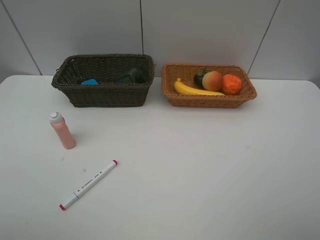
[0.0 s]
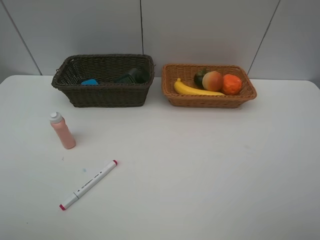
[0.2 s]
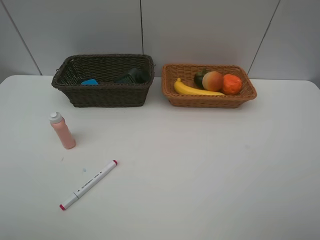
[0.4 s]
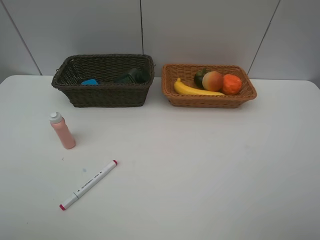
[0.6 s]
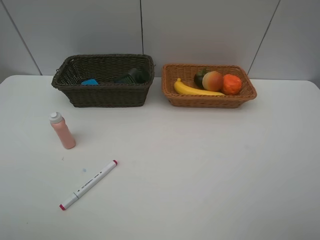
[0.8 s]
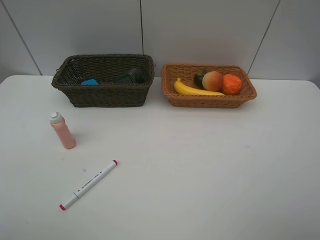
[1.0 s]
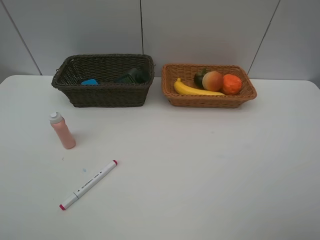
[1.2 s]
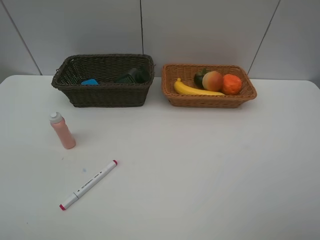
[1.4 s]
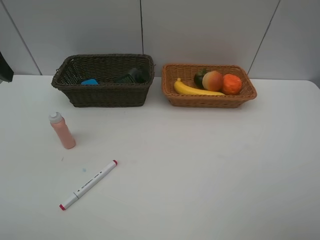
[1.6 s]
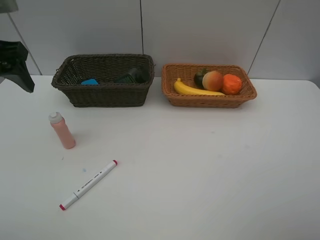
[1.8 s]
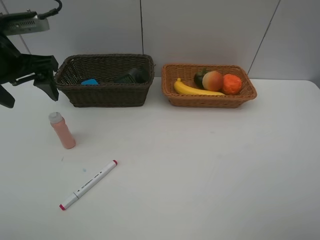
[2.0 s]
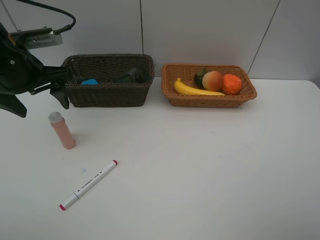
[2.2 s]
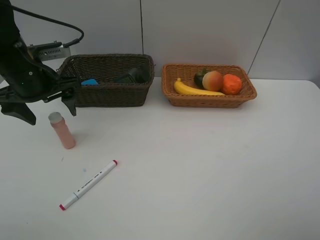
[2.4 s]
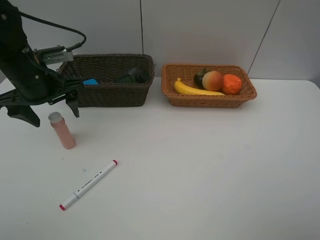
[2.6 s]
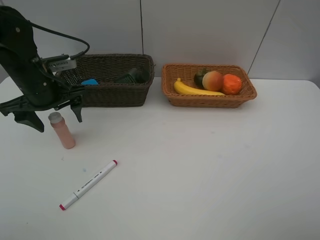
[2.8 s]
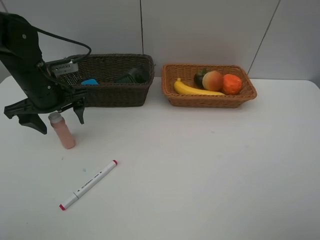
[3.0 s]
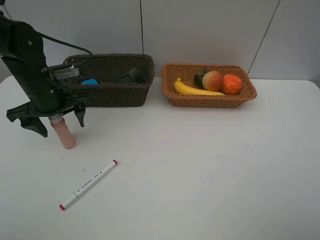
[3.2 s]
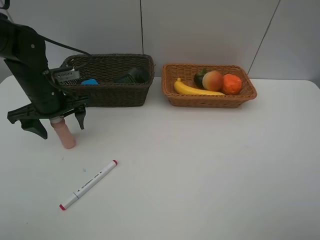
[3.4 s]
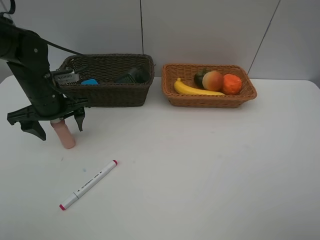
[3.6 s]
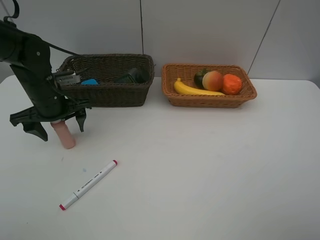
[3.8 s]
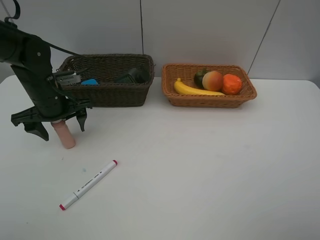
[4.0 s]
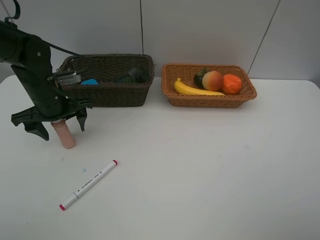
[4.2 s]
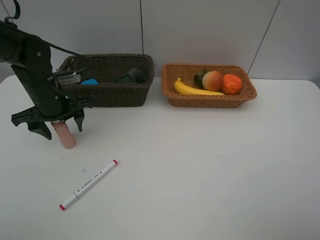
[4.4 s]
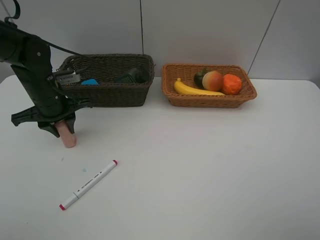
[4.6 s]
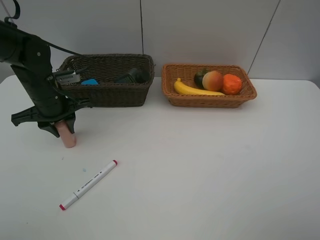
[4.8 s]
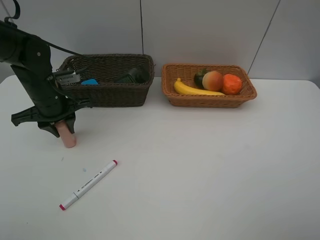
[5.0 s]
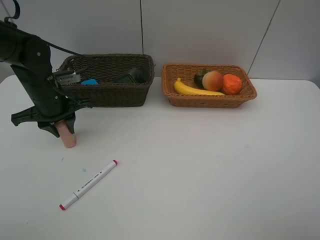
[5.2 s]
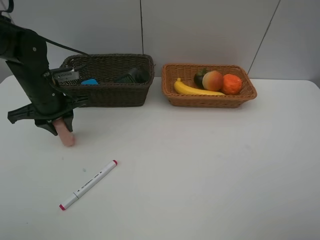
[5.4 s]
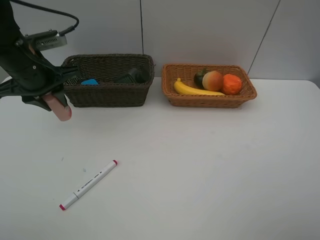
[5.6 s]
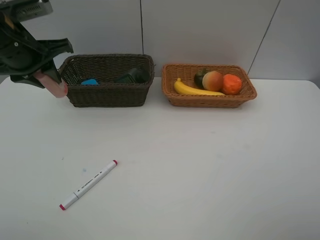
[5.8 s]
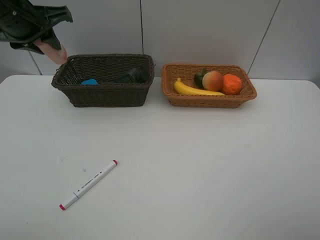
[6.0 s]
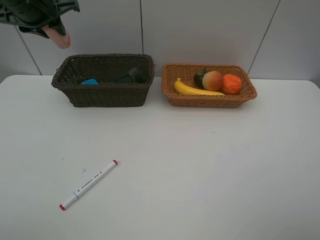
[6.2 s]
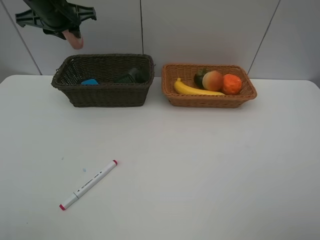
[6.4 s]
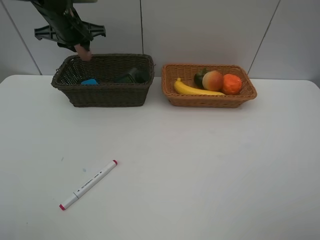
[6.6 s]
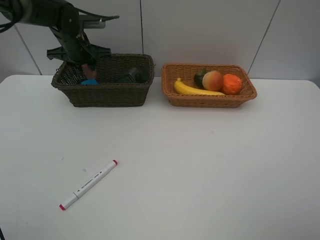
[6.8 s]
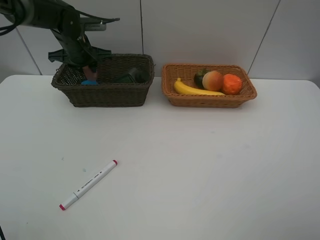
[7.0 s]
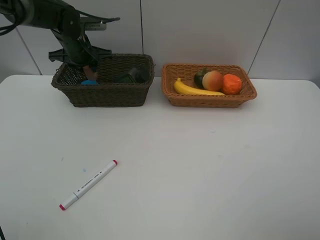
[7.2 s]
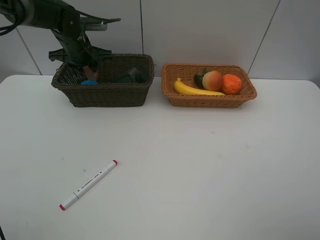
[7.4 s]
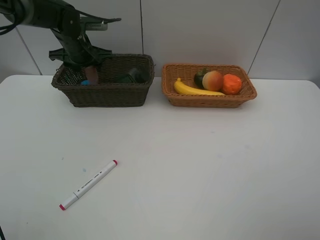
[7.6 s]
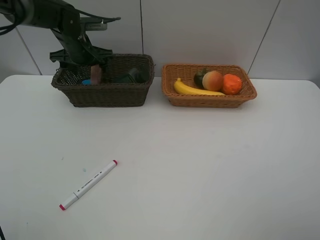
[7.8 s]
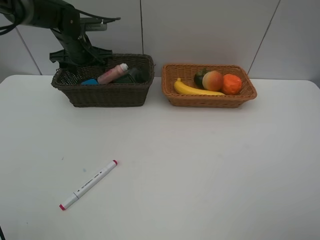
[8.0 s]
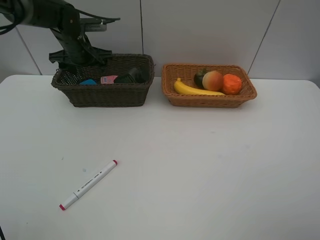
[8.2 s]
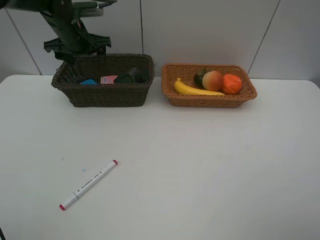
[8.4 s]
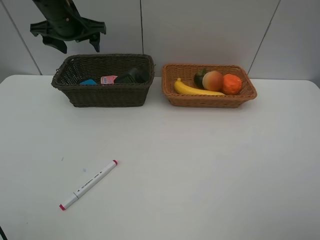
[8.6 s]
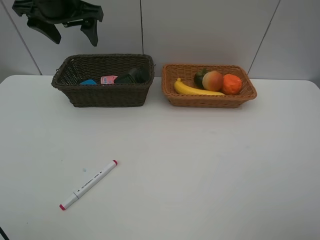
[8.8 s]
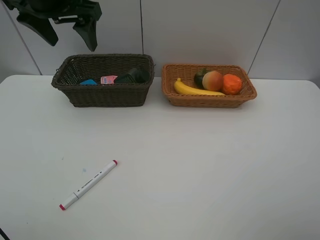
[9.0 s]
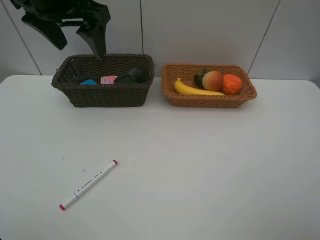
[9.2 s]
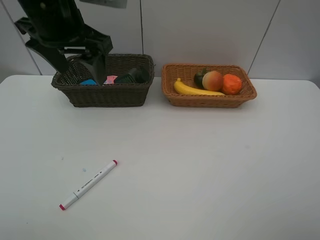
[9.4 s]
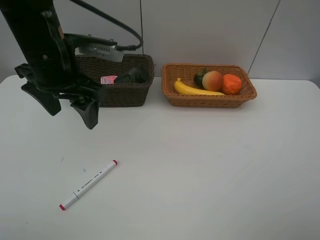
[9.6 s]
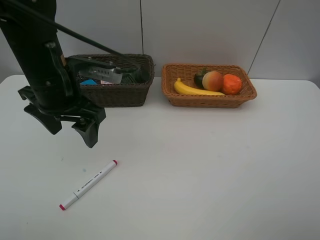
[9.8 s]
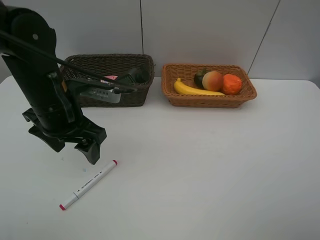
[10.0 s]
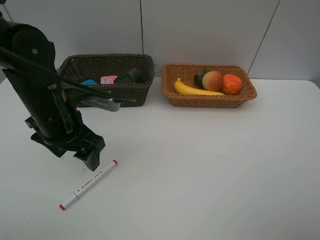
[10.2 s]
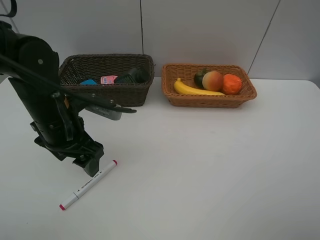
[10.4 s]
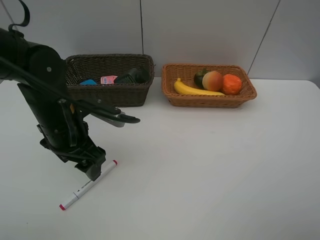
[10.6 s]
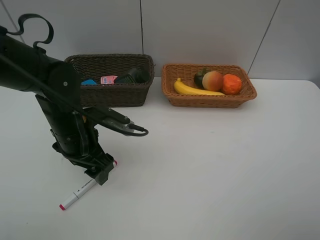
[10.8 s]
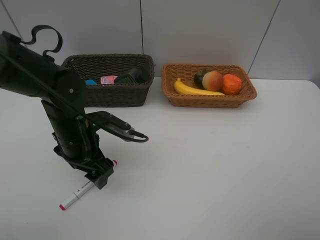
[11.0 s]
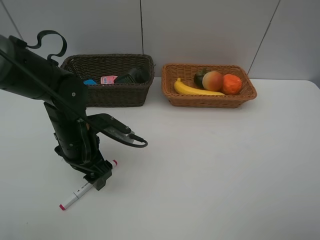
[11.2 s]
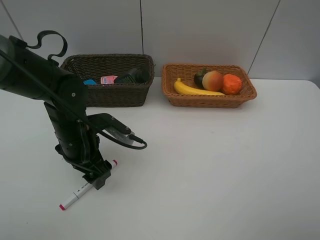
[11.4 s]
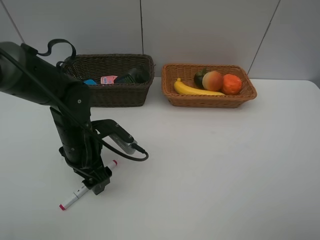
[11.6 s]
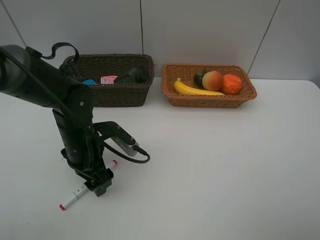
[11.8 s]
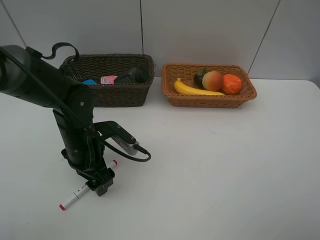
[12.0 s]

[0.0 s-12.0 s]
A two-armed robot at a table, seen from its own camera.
Task of the whole recording: Place multiple objects separately in different baskets.
Step, 0.0 to 5.4 s: Pick up the laundry detergent with left gripper.
Step, 5.6 to 8.2 s: Place the laundry detergent in the dark basket with left gripper.
1.6 to 3.0 s: The left gripper goes approximately 20 cm downward, forward and to the right.
3.0 to 4.4 s: The left gripper closes its fingers.
4.4 to 6.0 s: The left gripper travels upward by some 15 cm, and closes its fingers.
6.0 to 7.6 s: The left gripper heads forward and downward, covering approximately 20 cm, and opens its fingers.
7.6 to 9.0 s: The left gripper is displaced upward and backward by some 20 cm.
9.0 to 10.4 s: The left gripper heads downward and backward, covering some 20 cm.
10.4 to 12.0 s: The left gripper travels downward by some 5 cm.

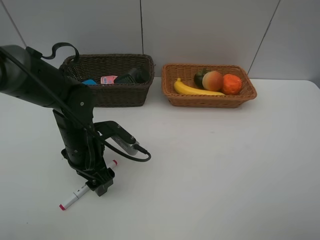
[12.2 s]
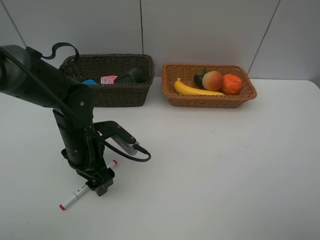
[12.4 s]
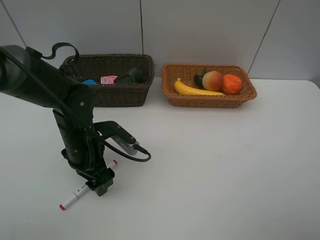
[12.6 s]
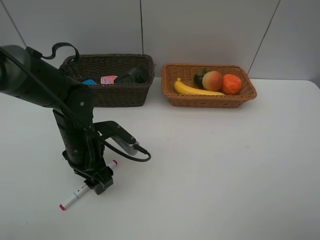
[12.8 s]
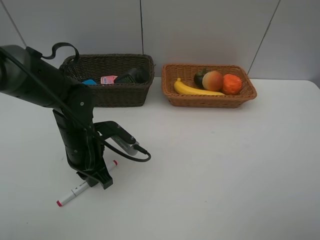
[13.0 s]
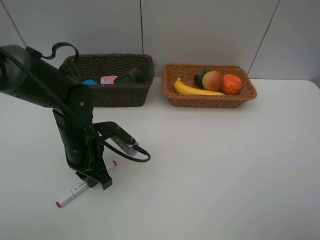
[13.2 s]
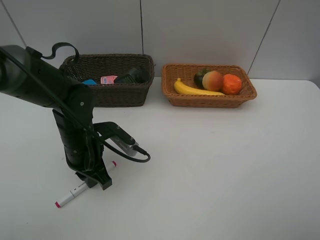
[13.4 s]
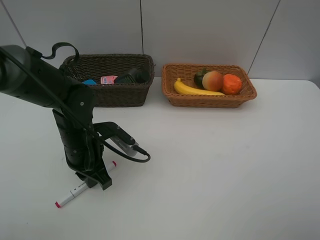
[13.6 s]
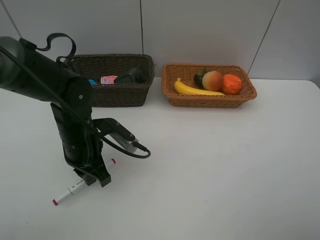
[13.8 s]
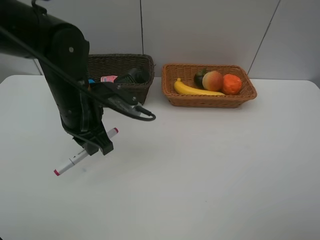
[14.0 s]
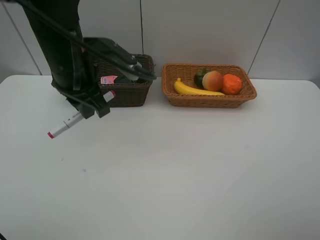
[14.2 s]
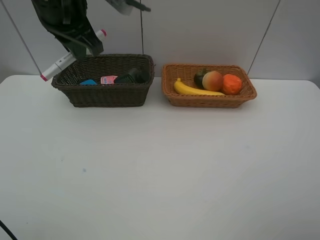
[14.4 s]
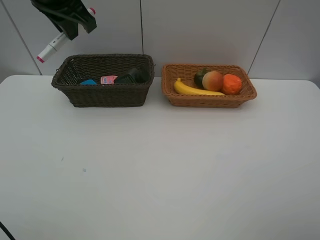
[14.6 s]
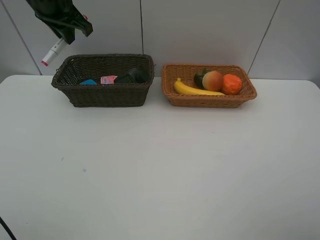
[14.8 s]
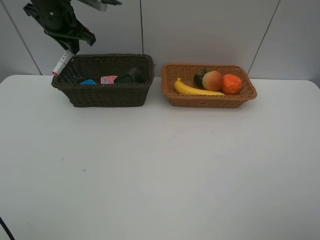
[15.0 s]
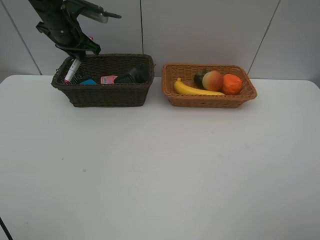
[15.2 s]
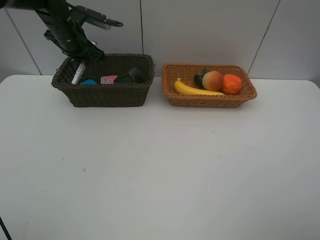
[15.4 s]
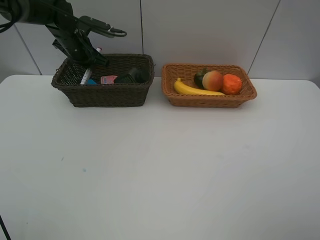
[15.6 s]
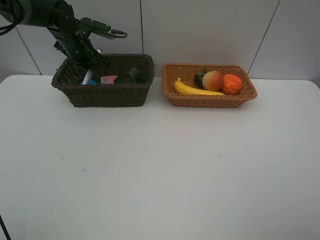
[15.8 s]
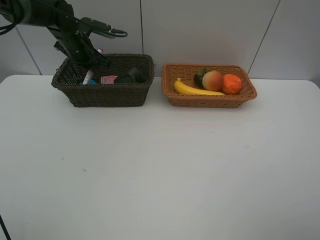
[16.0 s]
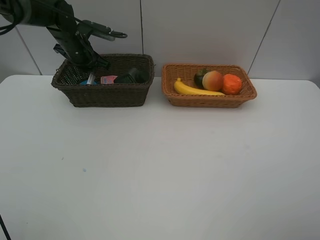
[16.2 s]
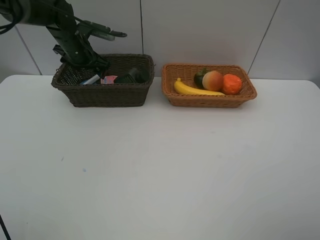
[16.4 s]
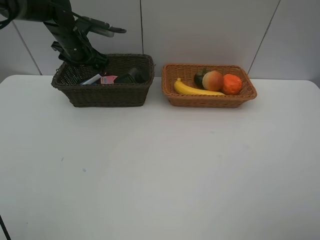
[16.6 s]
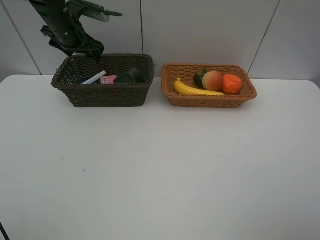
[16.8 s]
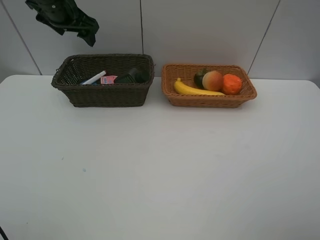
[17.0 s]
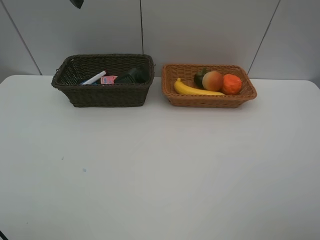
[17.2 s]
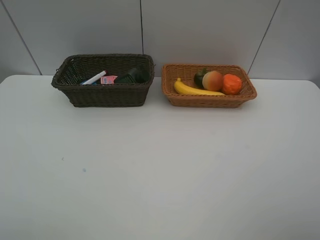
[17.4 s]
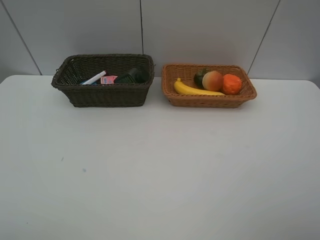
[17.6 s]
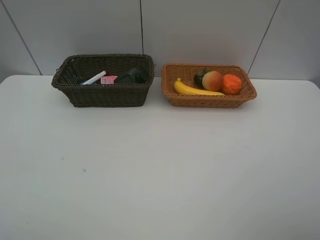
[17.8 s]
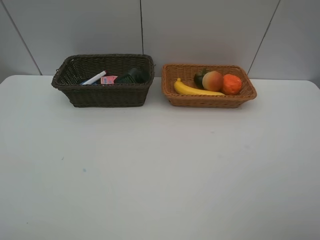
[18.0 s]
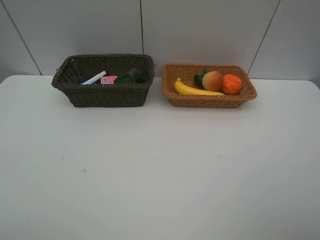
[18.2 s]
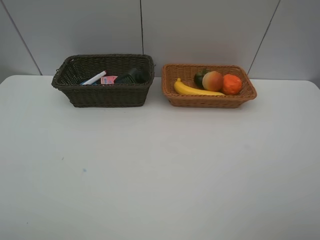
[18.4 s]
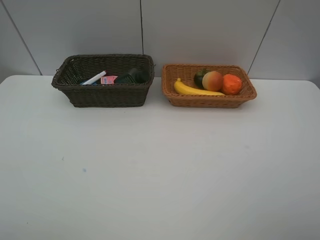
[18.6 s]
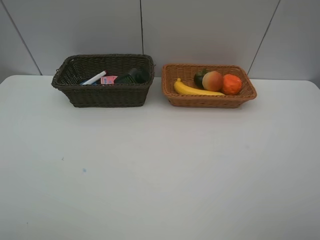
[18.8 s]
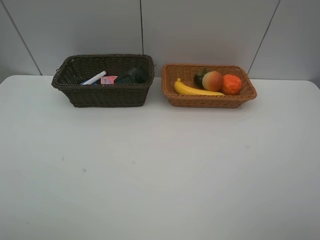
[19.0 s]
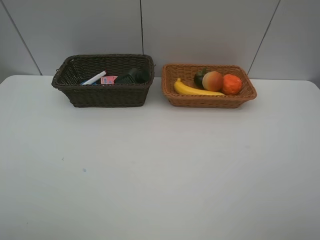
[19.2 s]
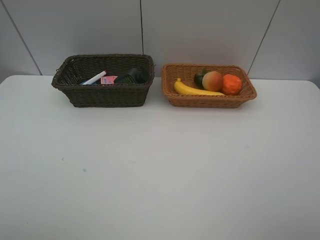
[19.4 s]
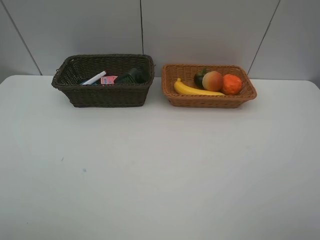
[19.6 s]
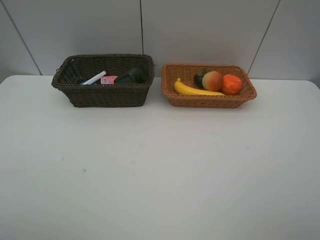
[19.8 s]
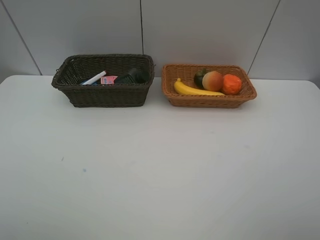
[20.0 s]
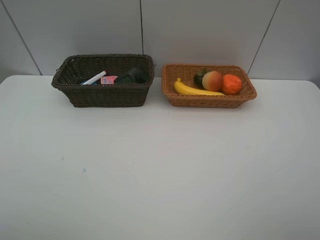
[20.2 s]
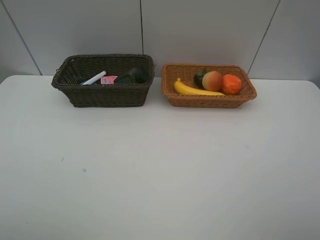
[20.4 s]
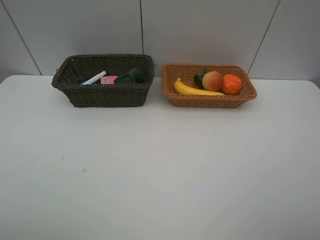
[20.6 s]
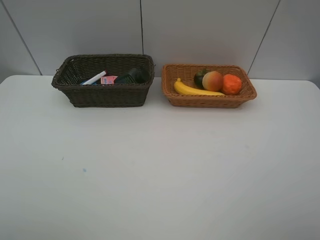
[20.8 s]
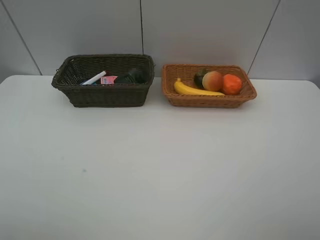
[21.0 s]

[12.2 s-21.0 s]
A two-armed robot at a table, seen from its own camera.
Task of the whole recording: Place multiple objects separately in different baskets.
Step, 14.0 to 16.6 s: Place the red marker in the dark basket with left gripper.
12.2 to 13.6 s: The left gripper closes up.
13.6 to 15.2 s: The left gripper shifts approximately 25 cm forward and upward.
15.2 to 16.6 s: The left gripper opens.
16.6 to 18.0 s: The left gripper travels backward and upward by about 50 cm.
19.6 to 21.0 s: The two grippers keep their place.

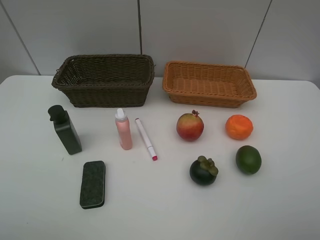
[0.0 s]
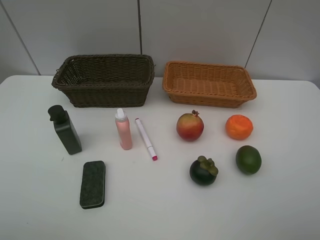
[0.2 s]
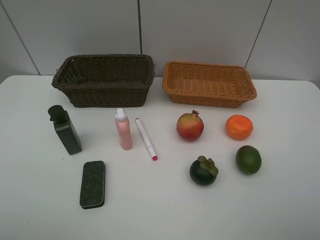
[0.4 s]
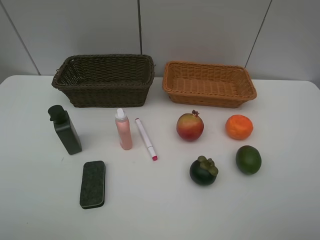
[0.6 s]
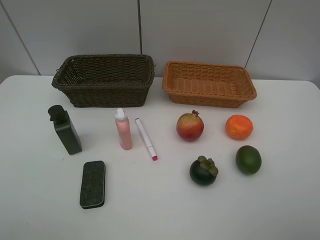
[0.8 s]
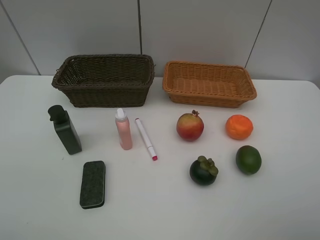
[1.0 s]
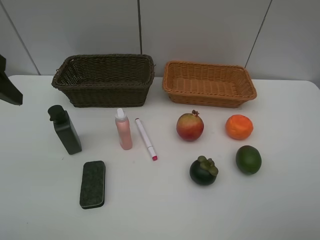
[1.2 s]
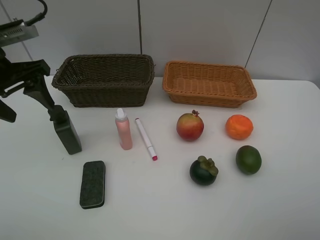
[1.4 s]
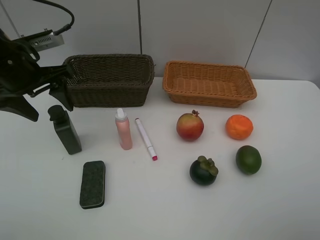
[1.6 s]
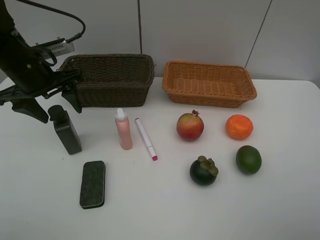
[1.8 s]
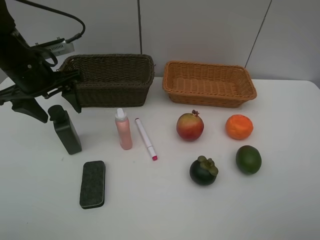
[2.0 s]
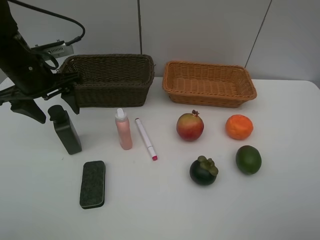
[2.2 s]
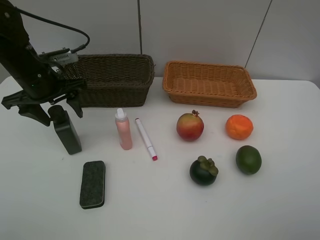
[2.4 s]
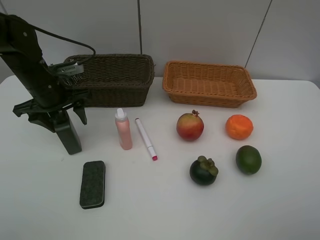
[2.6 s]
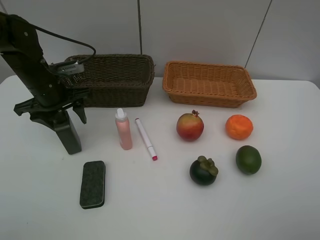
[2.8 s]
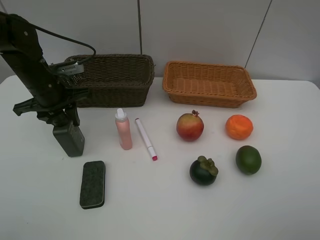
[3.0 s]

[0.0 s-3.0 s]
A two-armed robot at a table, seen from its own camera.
Task of the whole recording: Place multiple objects separately in different baskets.
0.0 to 1.6 s: The left gripper moves forward, approximately 30 cm.
1.6 to 3.0 s: The left gripper goes about 10 cm downward, and closes up.
